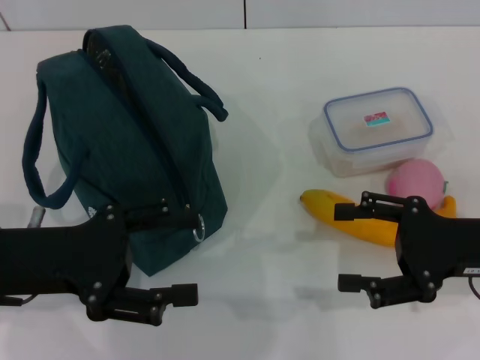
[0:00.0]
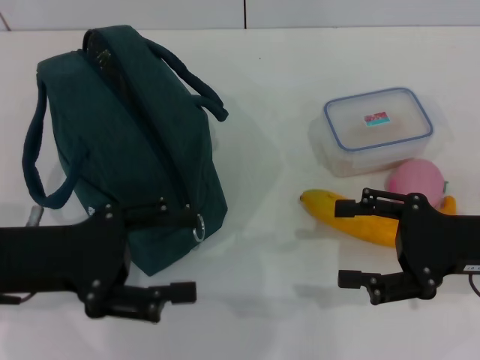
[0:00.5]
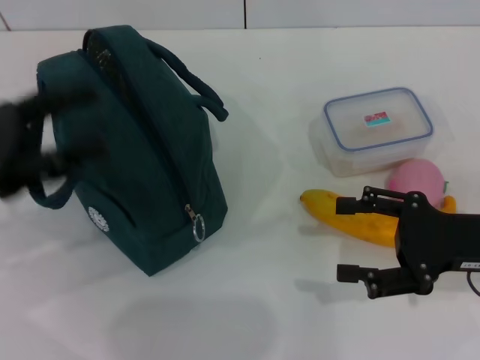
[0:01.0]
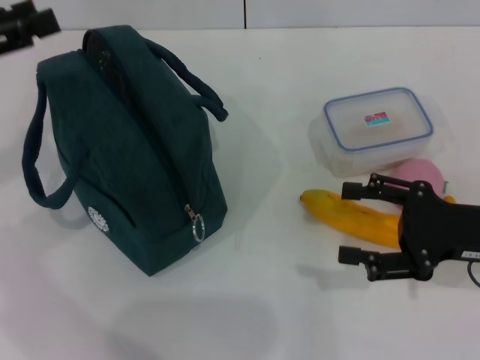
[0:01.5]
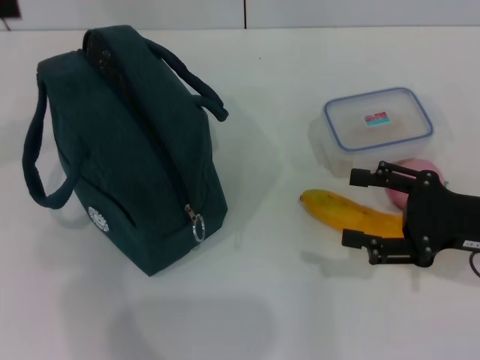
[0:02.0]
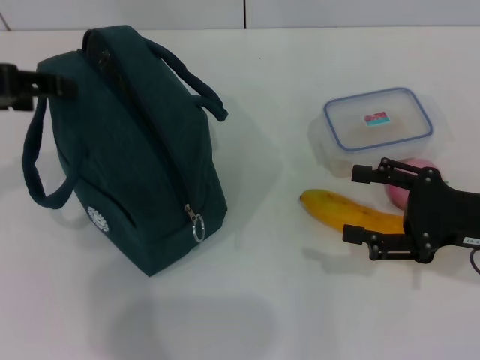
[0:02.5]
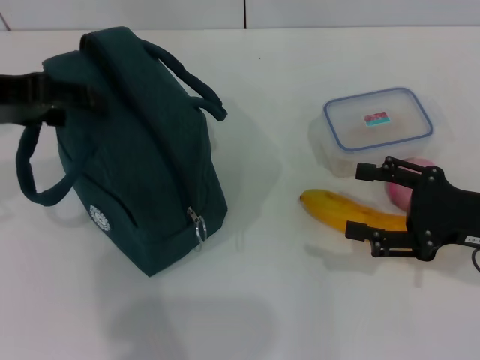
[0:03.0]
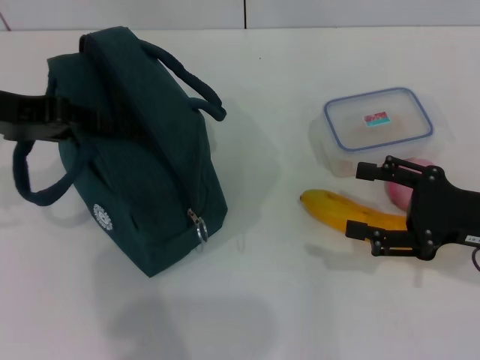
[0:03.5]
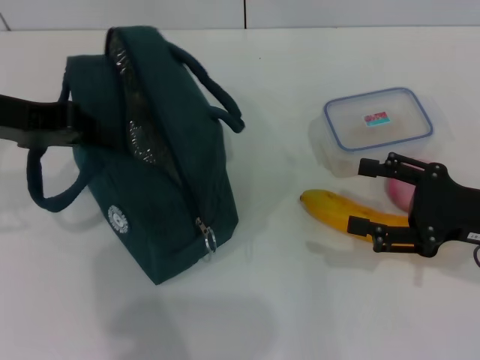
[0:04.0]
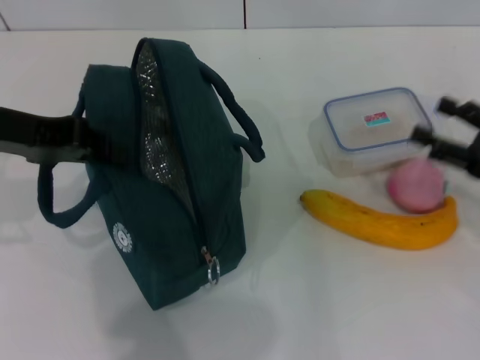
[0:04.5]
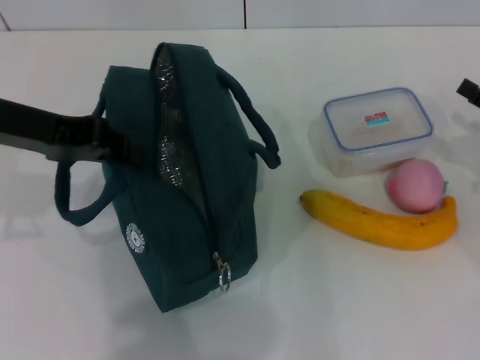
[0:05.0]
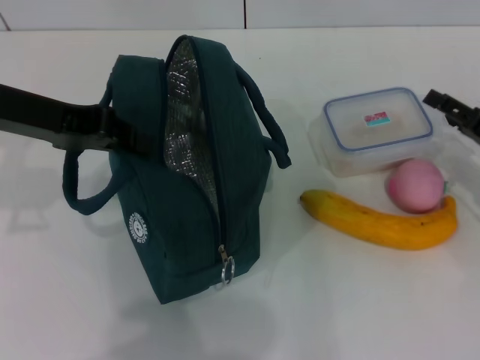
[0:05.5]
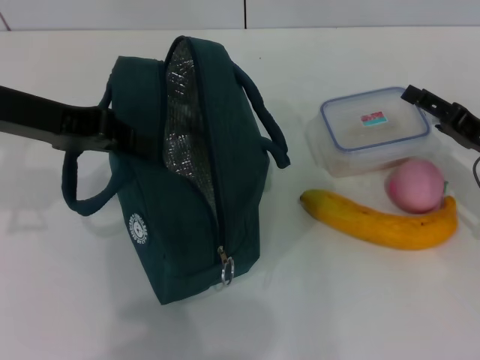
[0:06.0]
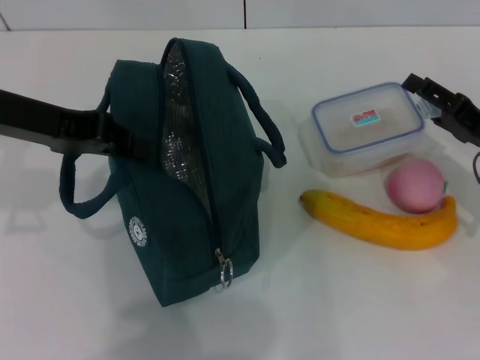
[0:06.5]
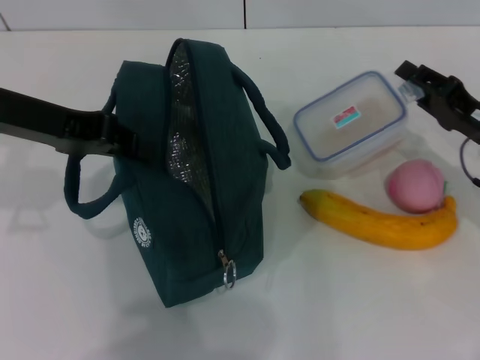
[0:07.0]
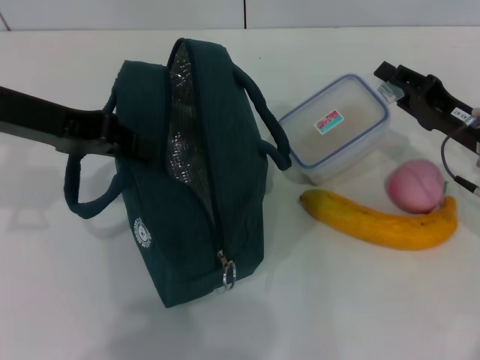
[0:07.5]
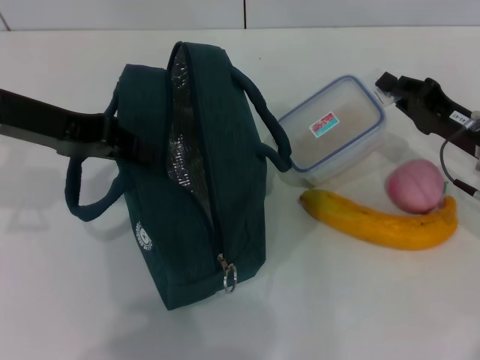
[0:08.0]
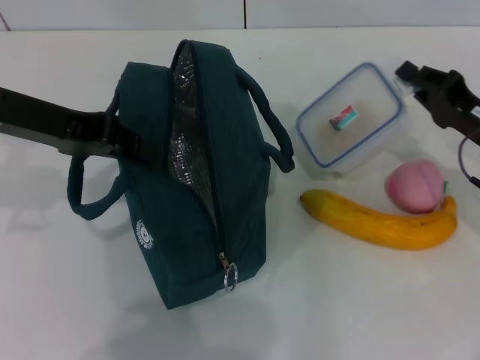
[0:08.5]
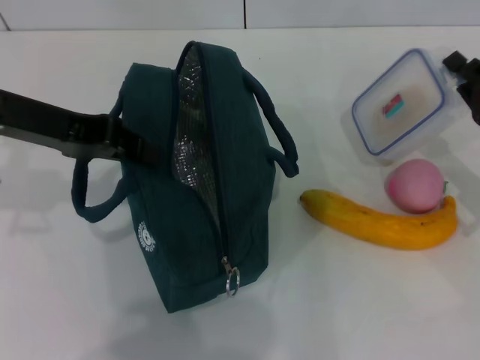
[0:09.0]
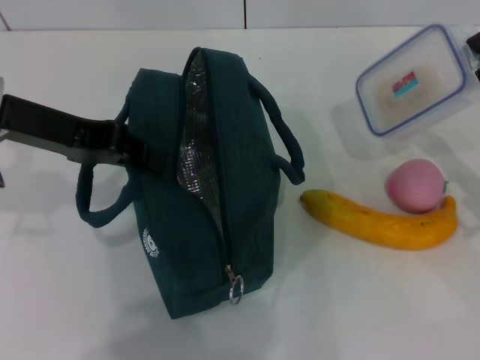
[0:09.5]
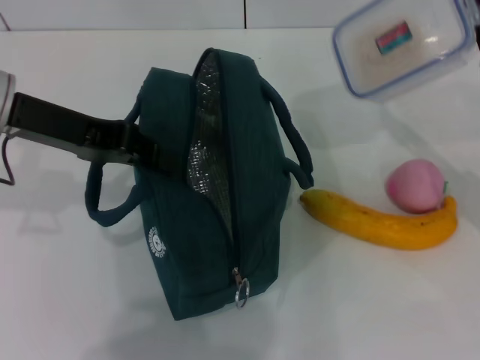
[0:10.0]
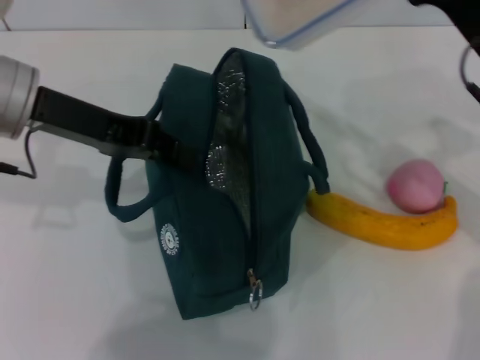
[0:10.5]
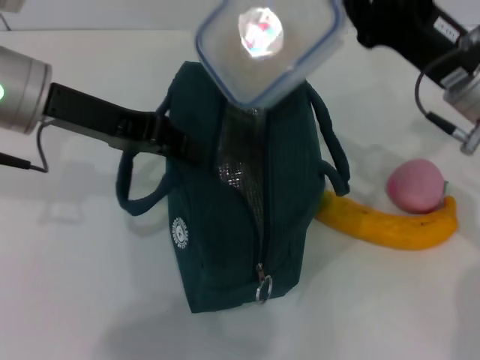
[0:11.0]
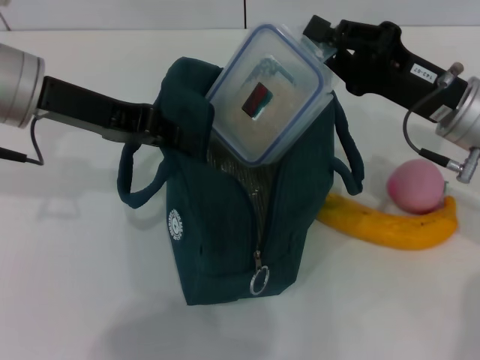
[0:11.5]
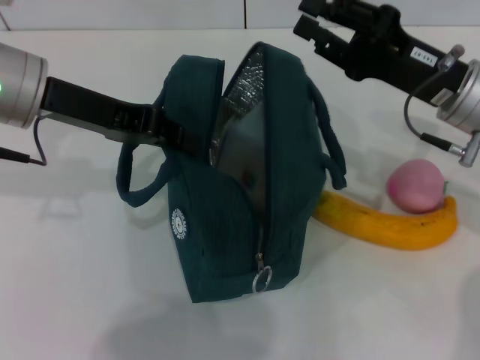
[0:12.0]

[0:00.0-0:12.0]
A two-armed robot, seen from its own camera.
Step, 0:00.0 to 0:04.5: Hold the lunch bag with your left hand.
Step, 0:05.0 to 0:08.0: Pick up the lunch box with your right hand.
0:00.0 to 0:02.0: The left gripper goes some 20 cm upward and to the left.
0:02.0 to 0:04.0: The left gripper travels downward and to the right by some 10 cm, and closes its fingers.
0:04.0 to 0:06.0: The right gripper travels forward by approximately 5 cm.
0:06.0 to 0:08.0: The right gripper closes its fingers.
0:08.0 to 0:10.0: The right gripper changes place by about 5 cm.
0:10.0 to 0:12.0: The right gripper goes roughly 10 cm to the left.

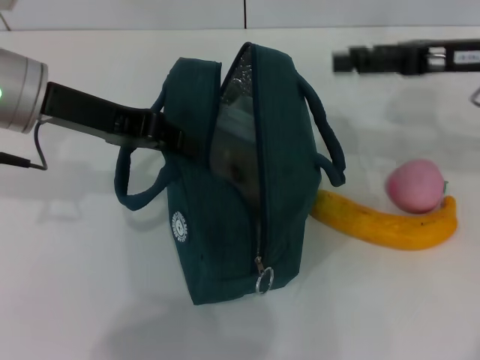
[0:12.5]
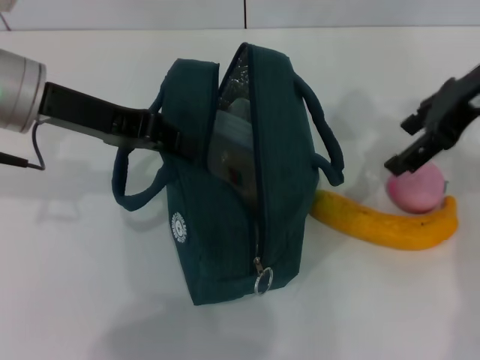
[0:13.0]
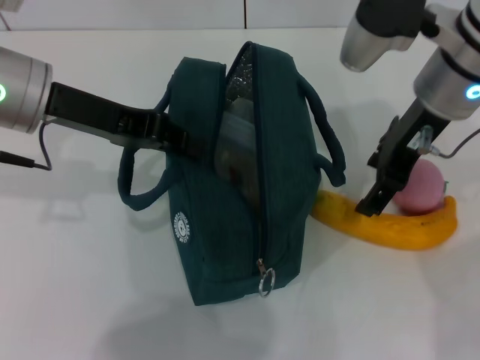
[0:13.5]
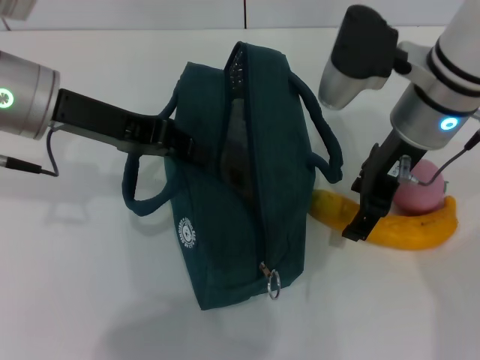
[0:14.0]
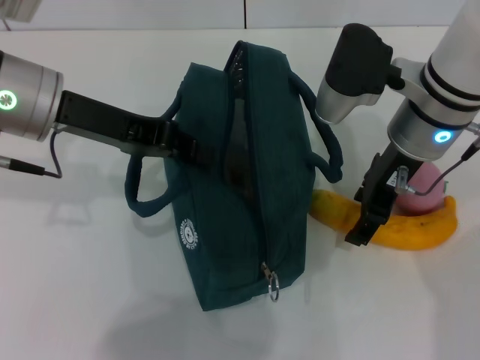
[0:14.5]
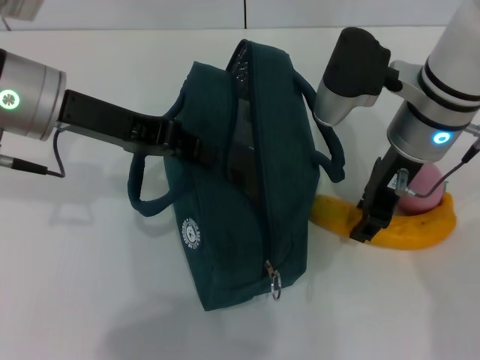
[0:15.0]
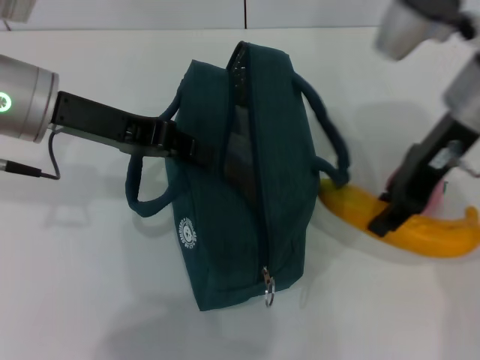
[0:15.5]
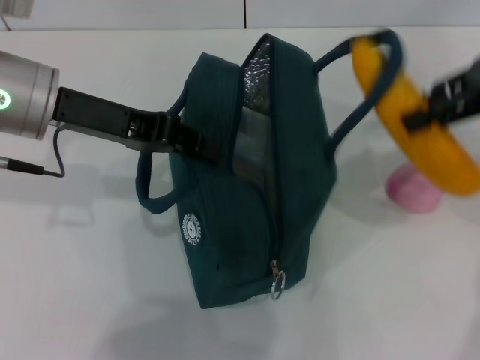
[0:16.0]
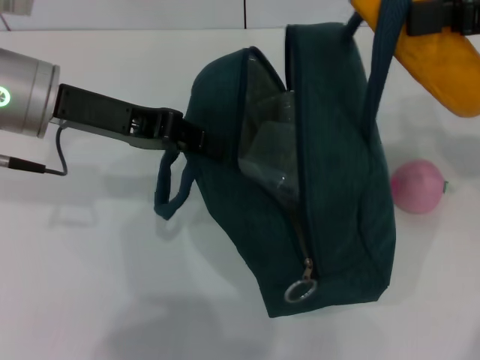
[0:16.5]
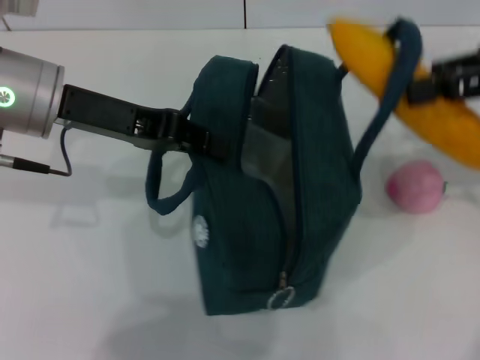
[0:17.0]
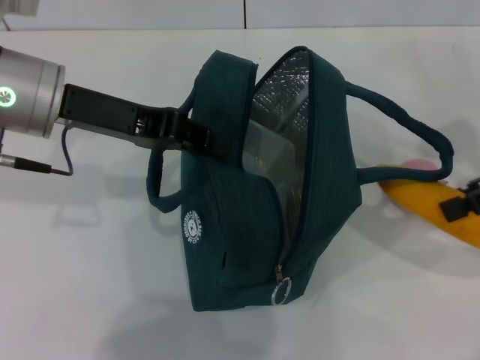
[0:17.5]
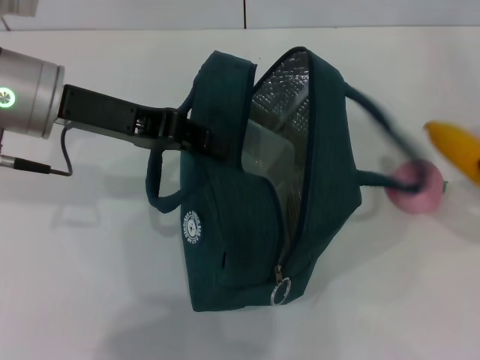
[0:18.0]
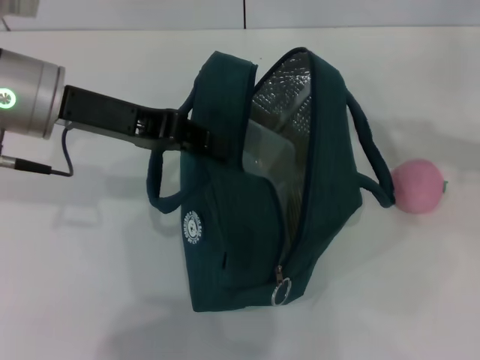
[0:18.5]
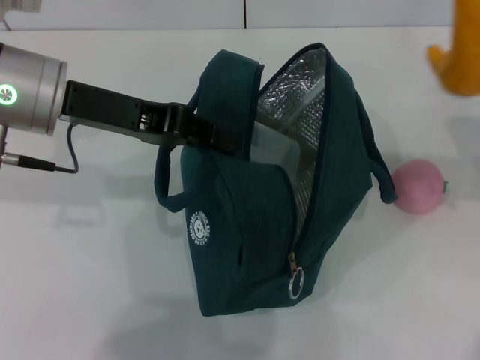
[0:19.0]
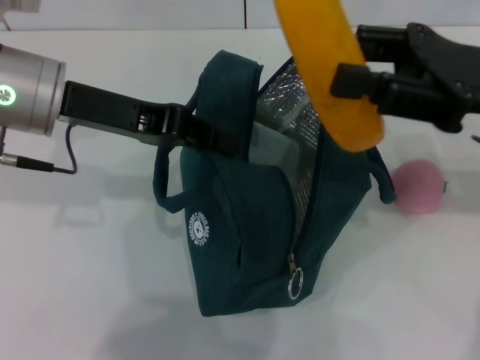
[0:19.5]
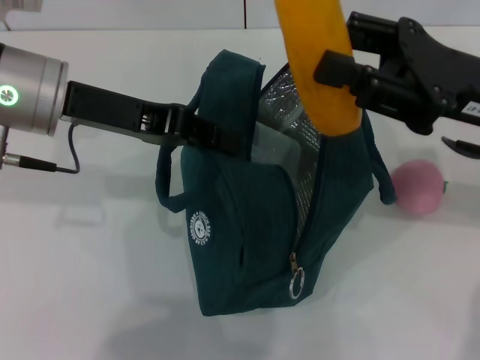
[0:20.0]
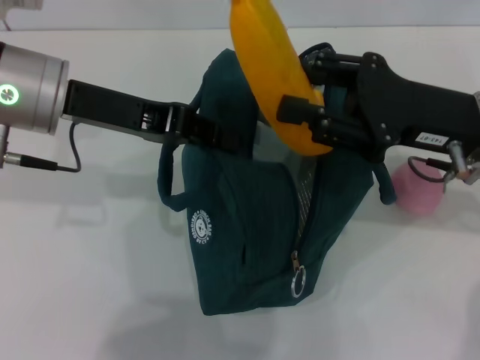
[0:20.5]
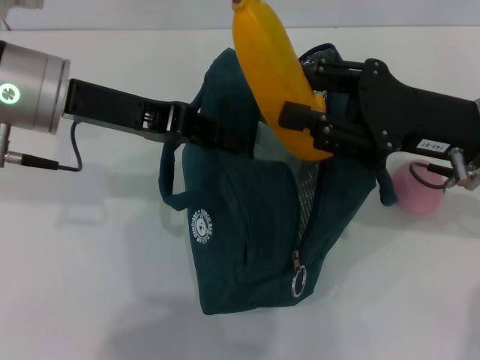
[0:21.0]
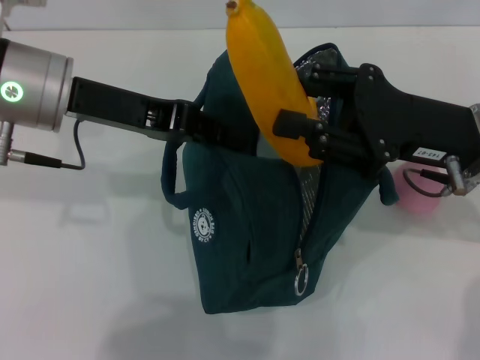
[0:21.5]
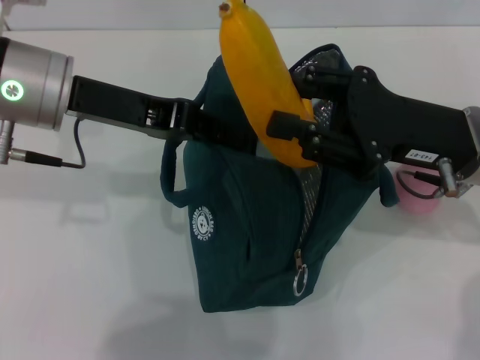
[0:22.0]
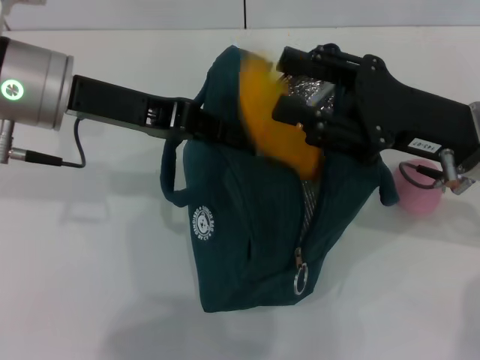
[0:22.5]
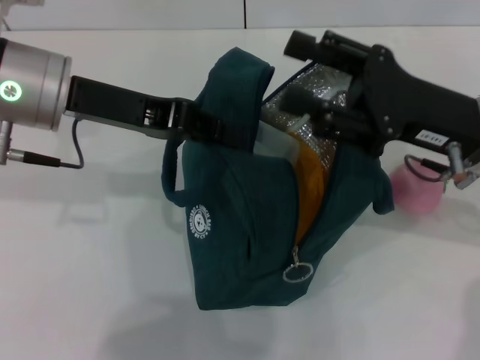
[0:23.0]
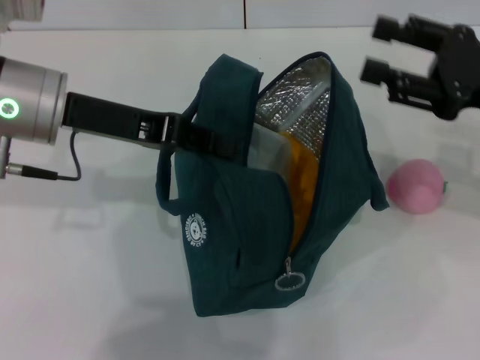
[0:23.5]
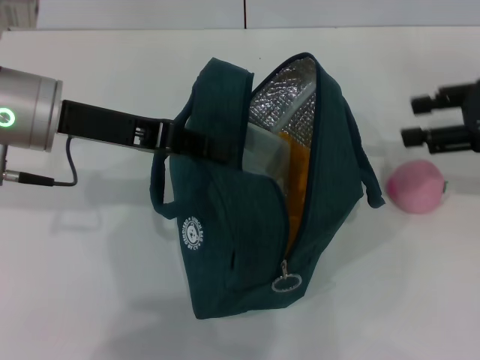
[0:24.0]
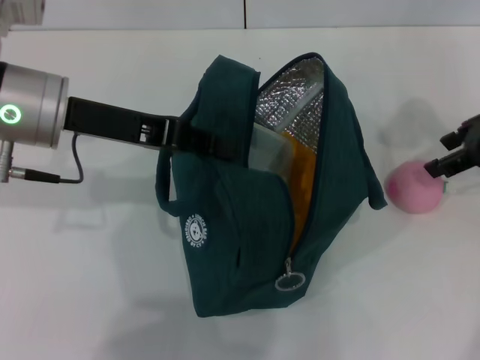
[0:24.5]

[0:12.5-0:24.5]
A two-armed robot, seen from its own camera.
Step, 0:12.5 to 0:14.5: Take the banana with your right hand.
Step, 0:15.0 to 0:23.0: Put the banana into the lunch bag with your right hand.
0:12.5 to 0:14.5: The right gripper shifts some 15 cm to the left.
0:14.5 to 0:16.5: The right gripper is displaced to the right and upward by roughly 20 cm, and closes.
0:16.5 to 0:18.5: The right gripper is displaced to the right by roughly 10 cm.
0:18.5 to 0:20.5: The right gripper heads to the left and downward, covering some 20 cm.
0:20.5 to 0:22.5: The grippers make only small movements.
0:22.5 to 0:24.5: The right gripper heads to the right, forward and upward, covering approximately 10 cm.

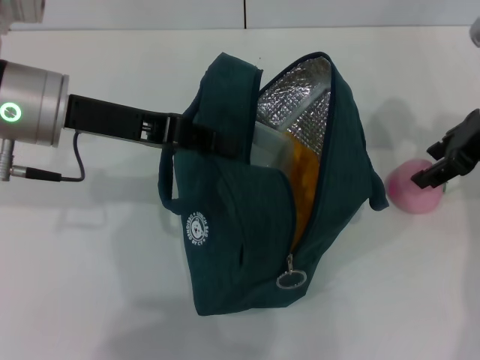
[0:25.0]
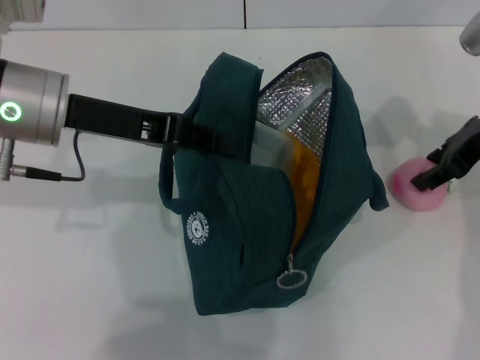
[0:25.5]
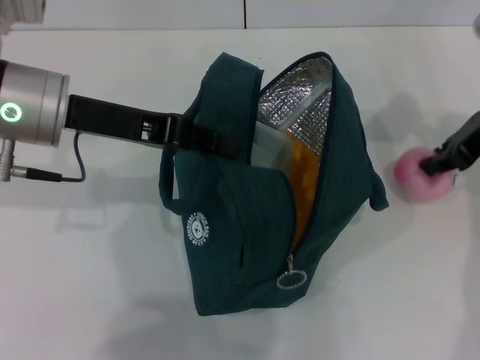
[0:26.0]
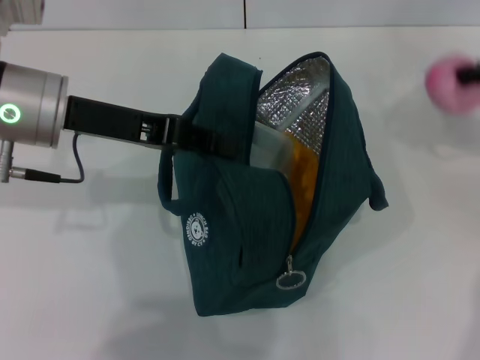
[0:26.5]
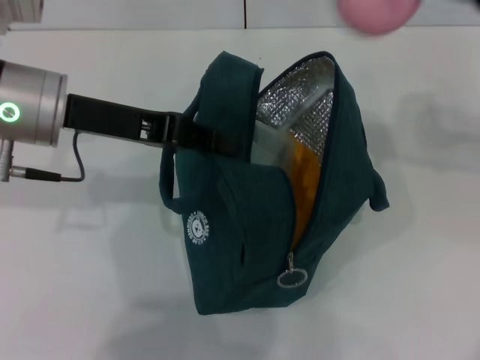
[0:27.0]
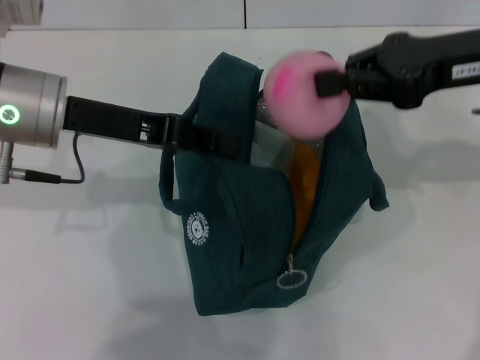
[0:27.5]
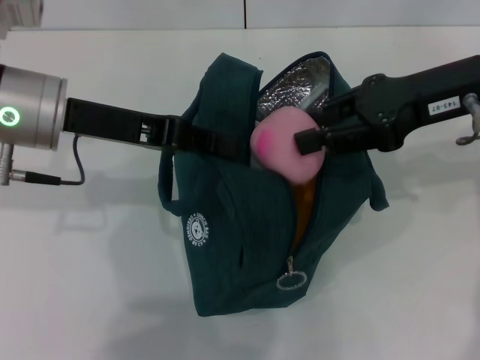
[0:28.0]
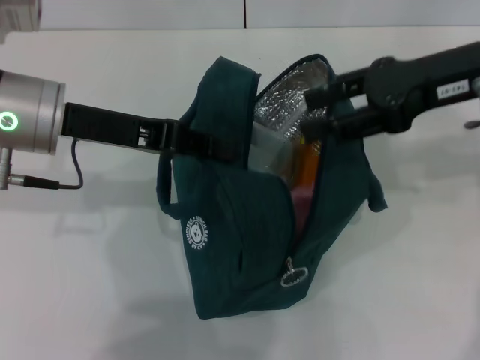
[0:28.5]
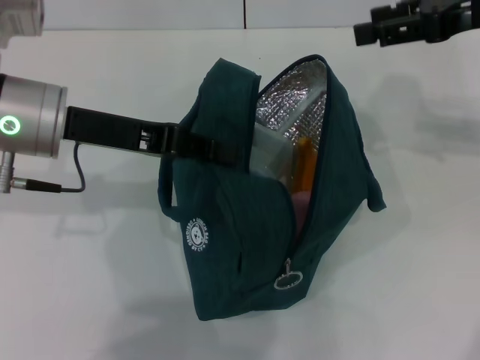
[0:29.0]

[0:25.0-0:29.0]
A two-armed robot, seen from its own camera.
0:25.0 to 0:27.0: The right gripper is displaced upward by about 10 cm, and closes up.
0:27.0 to 0:29.0: The right gripper opens its fingers.
